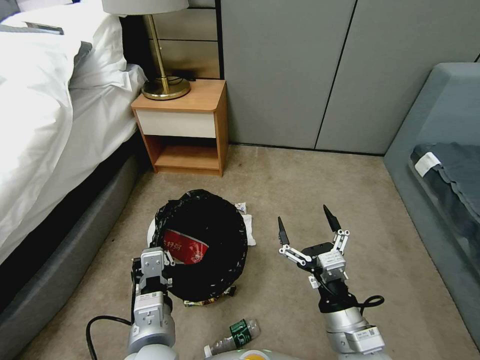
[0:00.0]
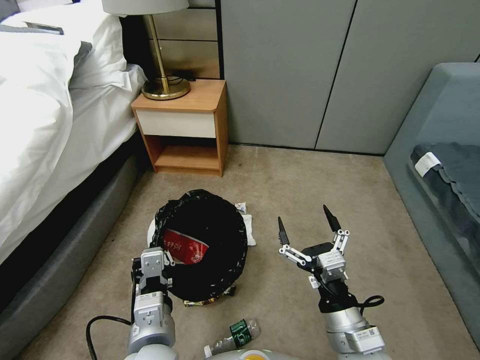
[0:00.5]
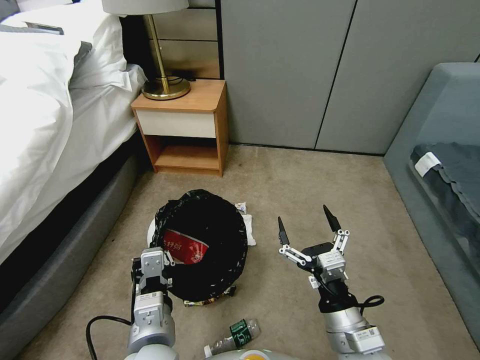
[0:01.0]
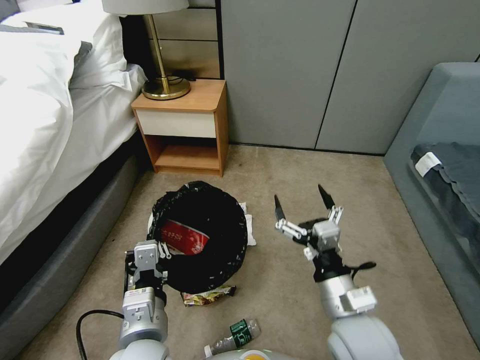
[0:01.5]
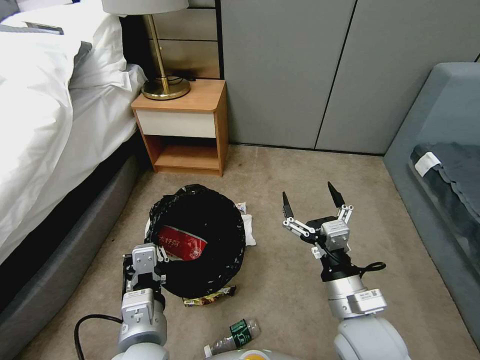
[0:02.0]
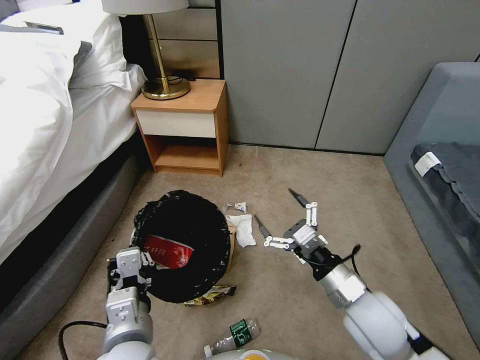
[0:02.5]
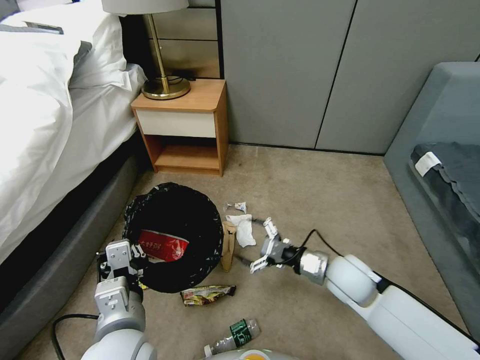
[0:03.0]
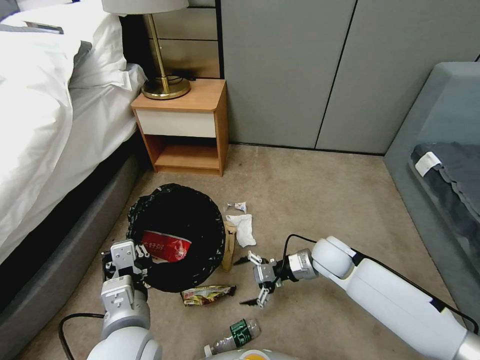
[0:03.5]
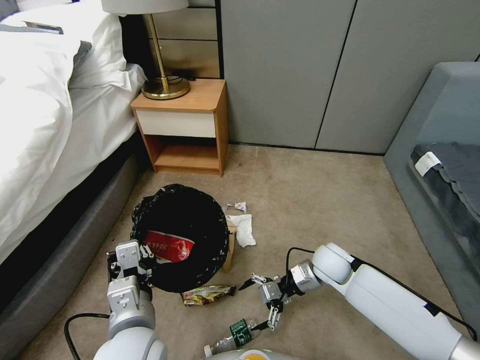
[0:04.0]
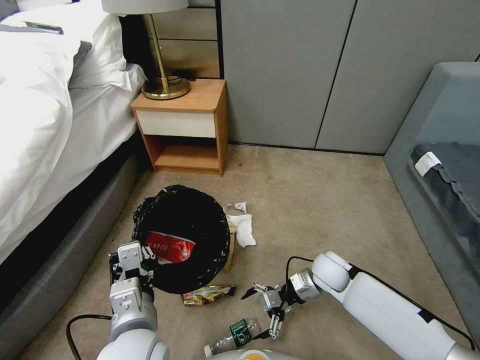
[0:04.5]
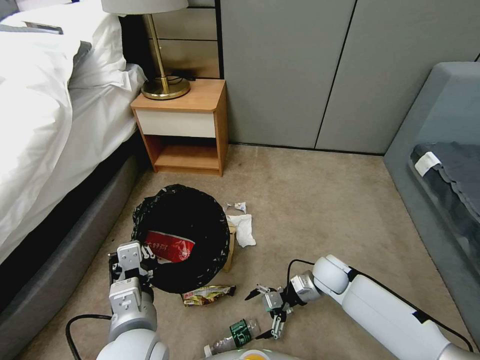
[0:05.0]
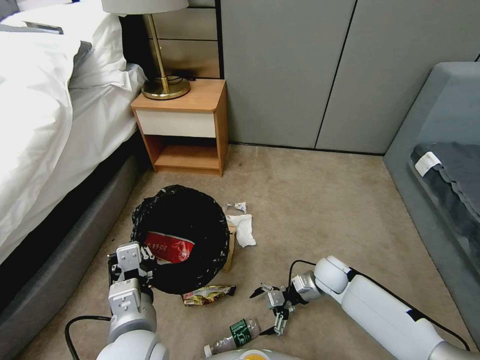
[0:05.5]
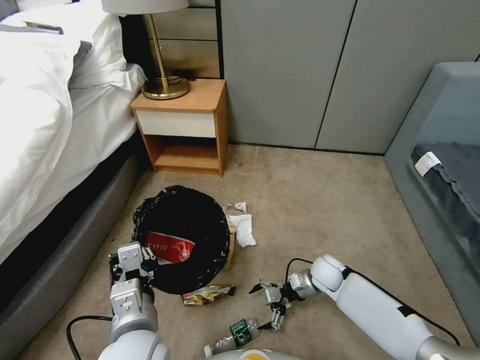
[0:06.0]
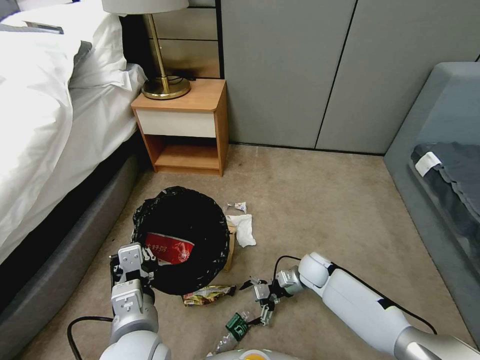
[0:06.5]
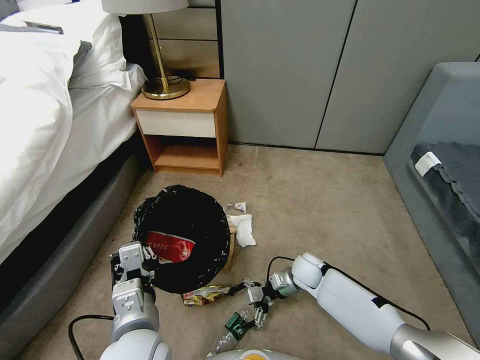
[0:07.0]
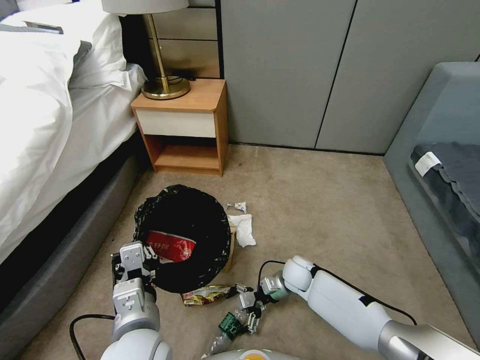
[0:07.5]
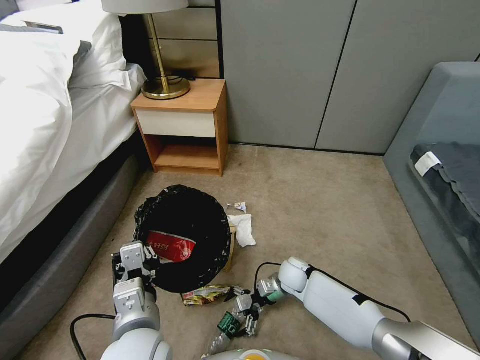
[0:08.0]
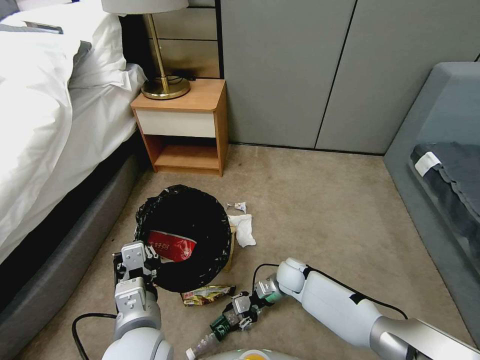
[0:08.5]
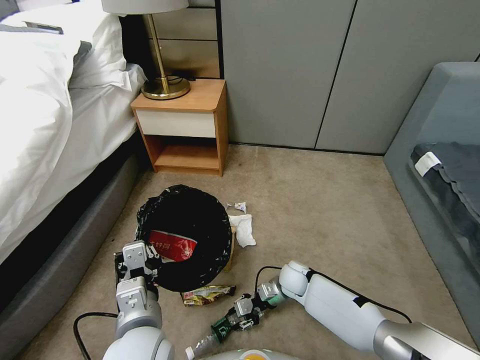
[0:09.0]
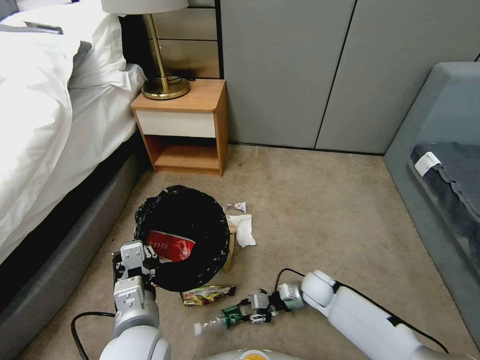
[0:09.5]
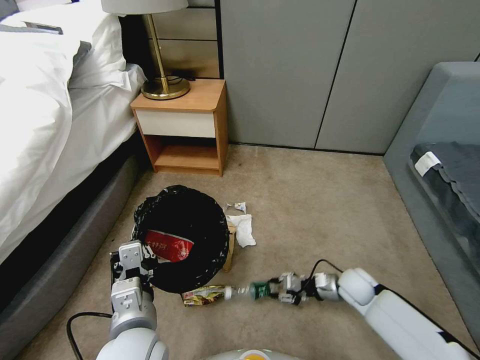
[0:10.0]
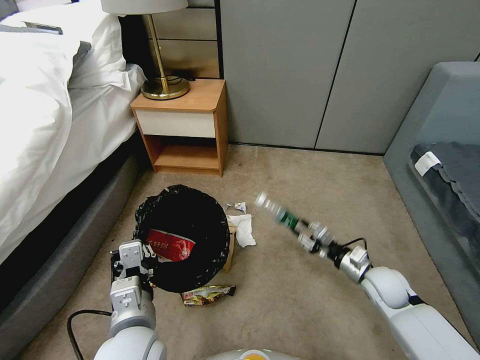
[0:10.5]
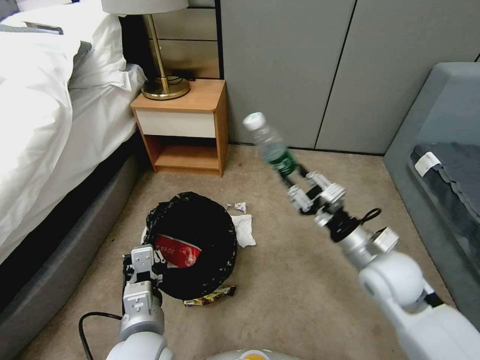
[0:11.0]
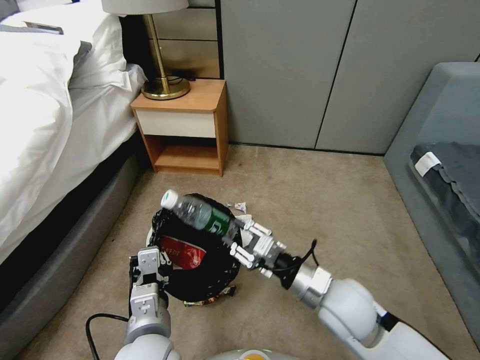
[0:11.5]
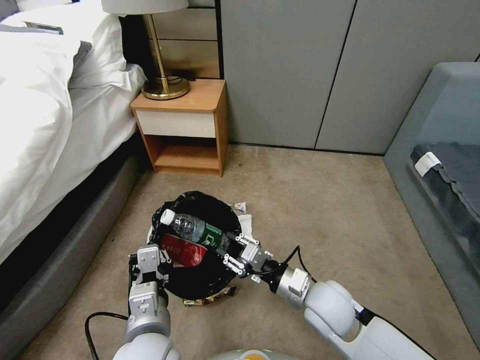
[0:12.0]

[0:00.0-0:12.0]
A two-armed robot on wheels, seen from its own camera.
Task of the whole recording: Pick up the trash bin, then pick up the garbage from the floor and place it into the trash bin.
0:00.0 to 0:02.0: The right gripper ends up roughly 5 cm from where it was.
0:02.0 to 0:04.0: The right gripper travels forward and downward by approximately 25 cm.
0:04.0 to 0:06.0: The right gripper travels downward by roughly 10 cm.
0:06.0 to 0:08.0: The right gripper shifts approximately 10 cm to the left.
0:08.0 to 0:10.0: The right gripper shifts about 15 cm to the right, and closes up.
0:10.0 to 0:12.0: The right gripper travels upward, to the left and backward by some 25 cm.

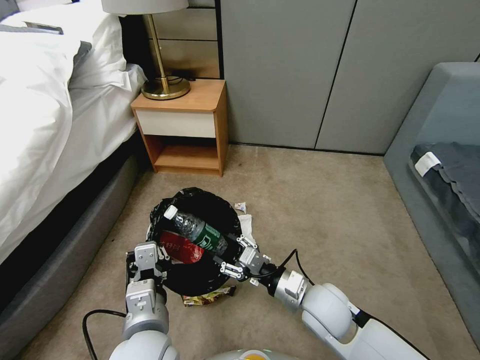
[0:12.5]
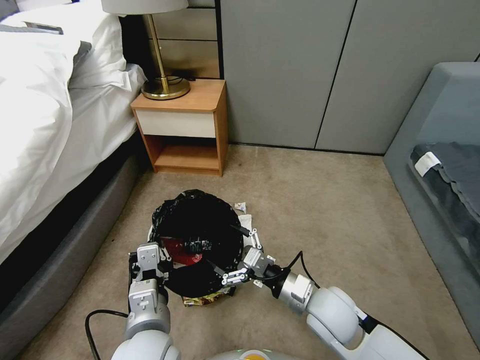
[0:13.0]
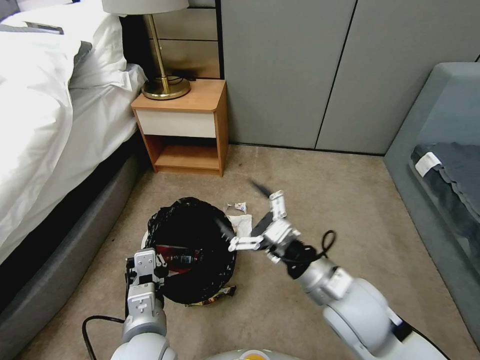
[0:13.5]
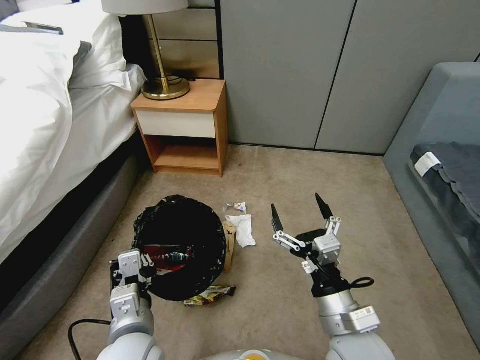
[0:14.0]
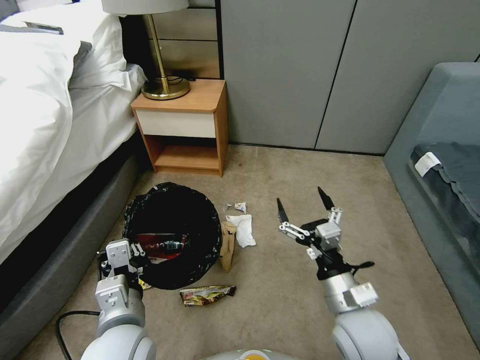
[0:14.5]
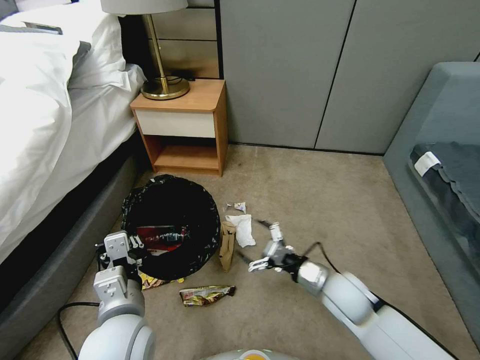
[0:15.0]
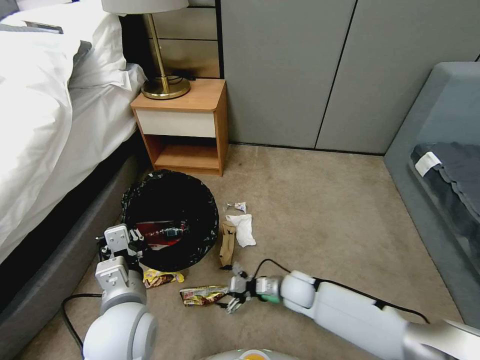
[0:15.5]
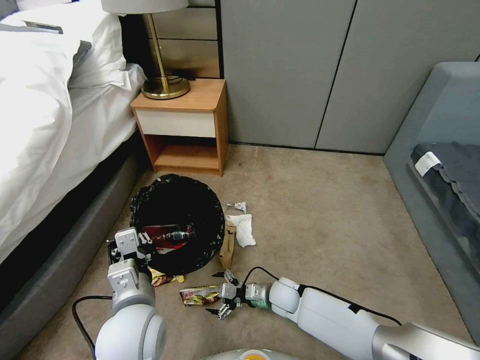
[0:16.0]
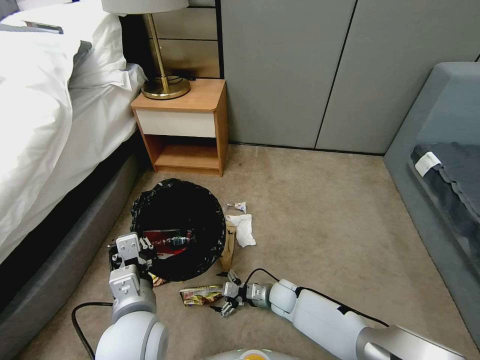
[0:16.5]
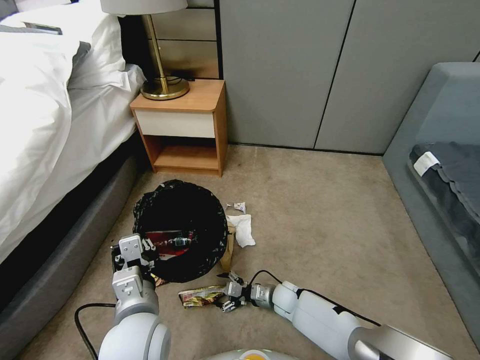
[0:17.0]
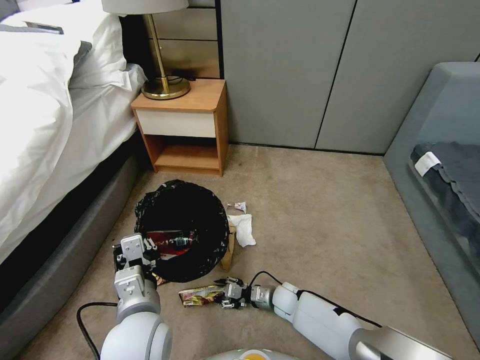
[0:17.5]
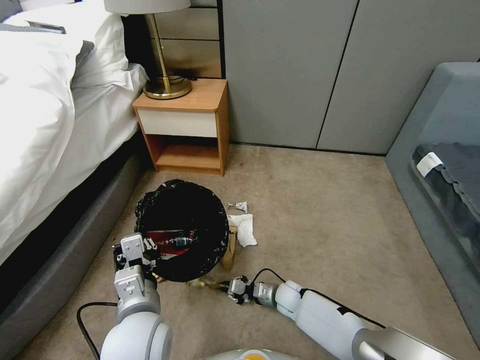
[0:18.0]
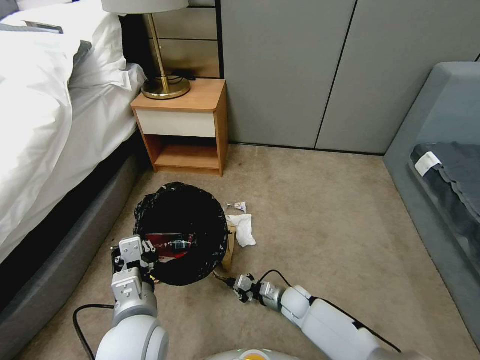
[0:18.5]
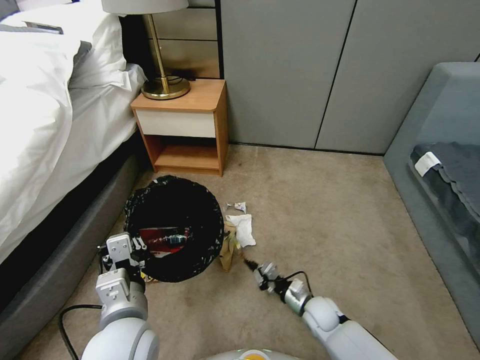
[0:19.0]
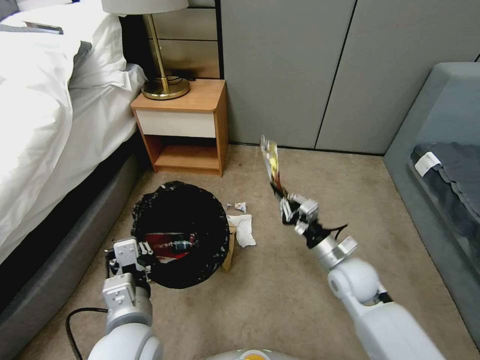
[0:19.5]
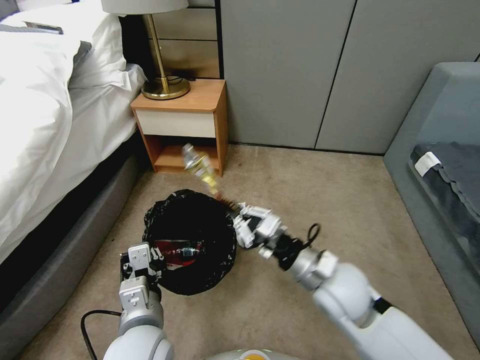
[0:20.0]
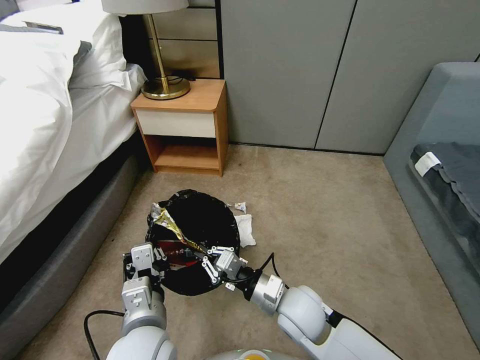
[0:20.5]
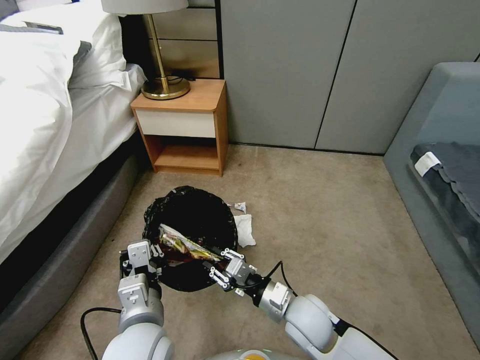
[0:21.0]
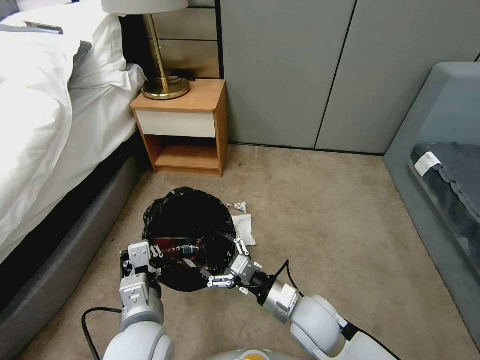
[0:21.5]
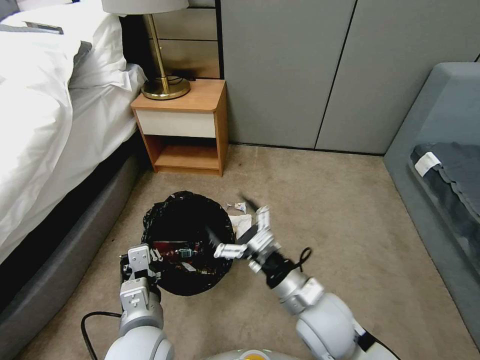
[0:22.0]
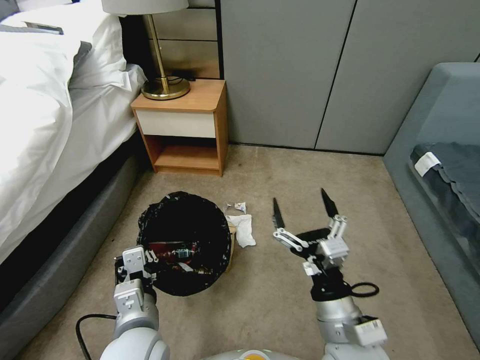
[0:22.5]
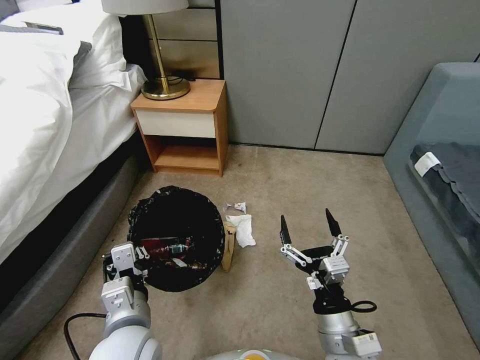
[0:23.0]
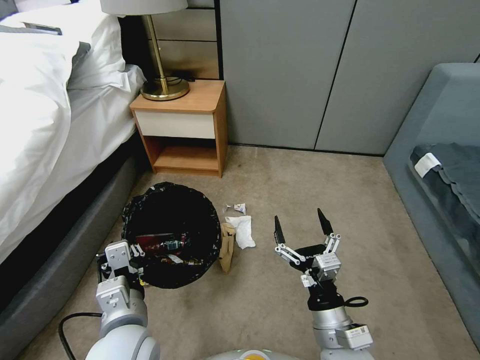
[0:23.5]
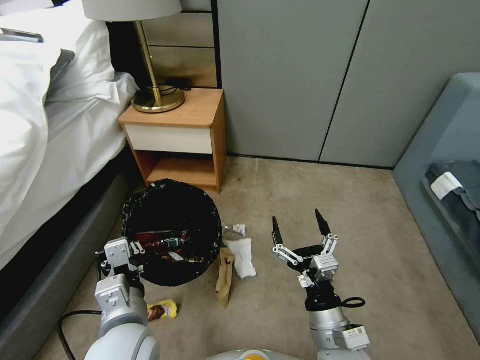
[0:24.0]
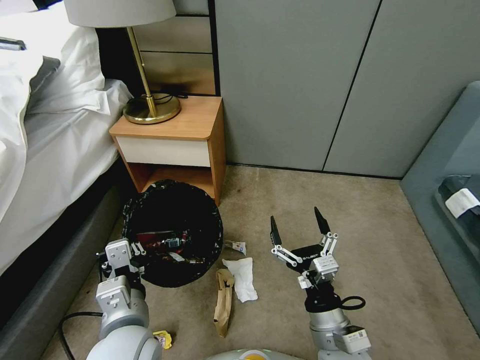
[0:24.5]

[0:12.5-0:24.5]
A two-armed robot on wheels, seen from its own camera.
Task of the whole recording: Pick up the trash bin, then pick up the garbage from the floor and place it into the trash bin.
0:12.5 to 0:14.5: The right gripper goes approximately 5 cm backward, and opens its fingers.
0:14.5 to 0:16.5: The right gripper goes about 30 cm downward and forward.
0:16.5 to 0:18.5: The right gripper closes up.
0:18.5 to 0:20.5: The right gripper shifts some 25 cm upward.
0:20.5 to 0:22.5: The right gripper heads backward, upward and to the right, covering roughly 15 cm, and opens.
0:22.5 to 0:24.5: The right gripper travels downward by some 5 cm.

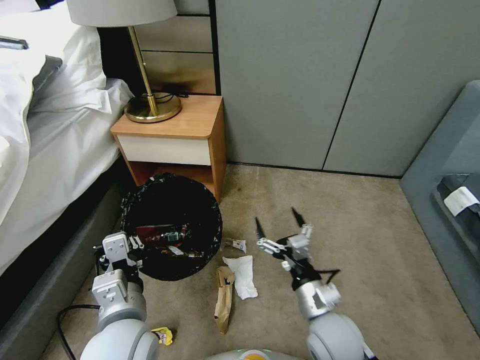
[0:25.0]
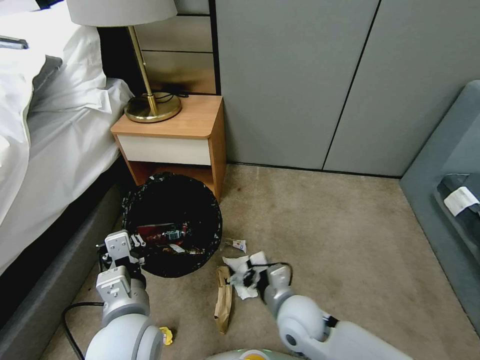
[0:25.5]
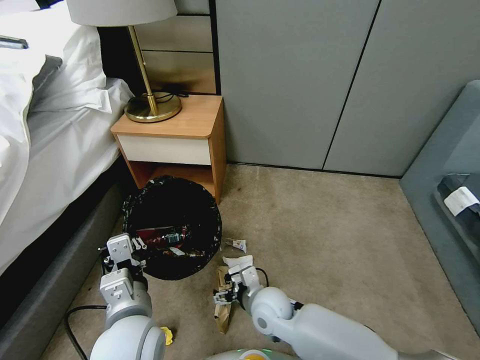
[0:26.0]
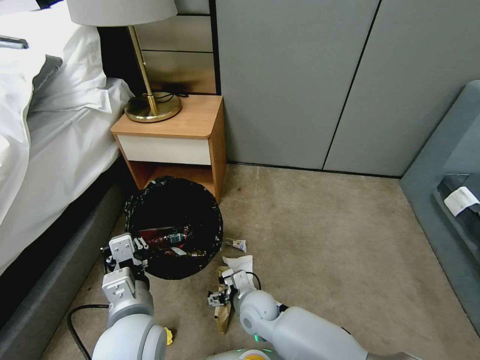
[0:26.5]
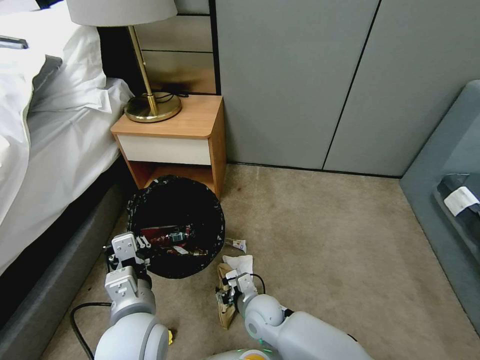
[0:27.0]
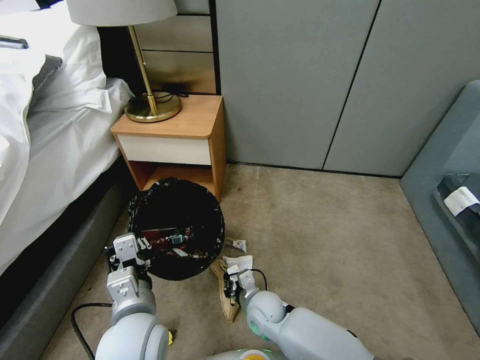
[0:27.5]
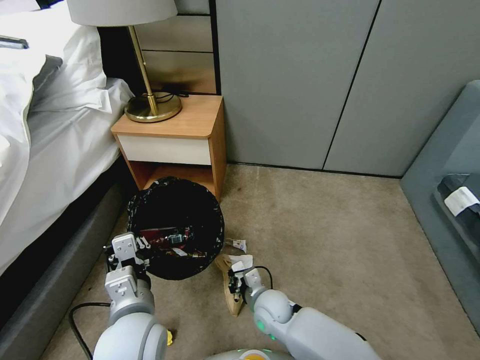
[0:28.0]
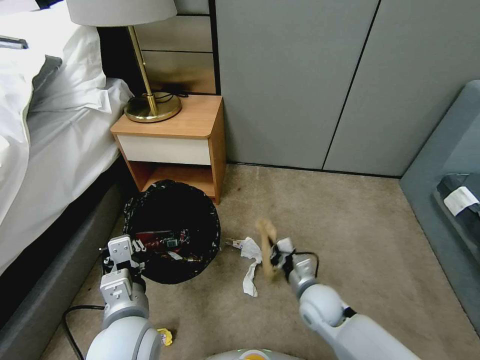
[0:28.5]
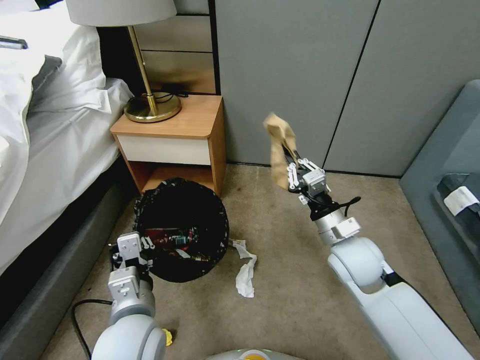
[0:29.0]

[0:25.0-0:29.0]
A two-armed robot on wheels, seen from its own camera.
Task of the whole recording: Pick up the trash bin, then pick up the garbage from the floor and place it into the trash bin.
0:25.0 to 0:27.0: The right gripper is displaced downward, to the left and forward by roughly 20 cm, and closes.
0:27.0 to 0:29.0: The right gripper heads upward and to the right, covering about 30 cm, and closes its fingers.
